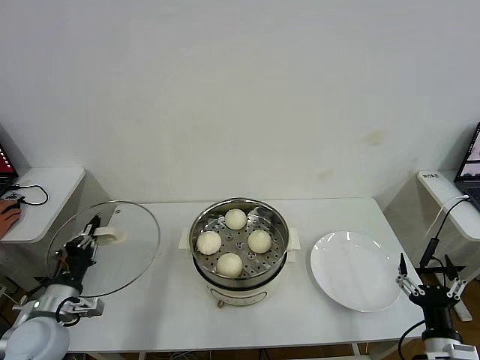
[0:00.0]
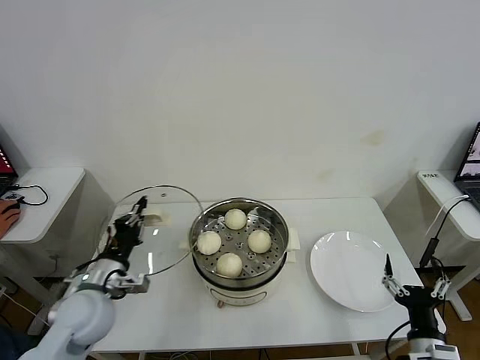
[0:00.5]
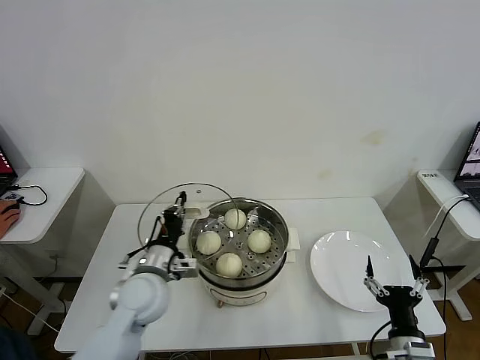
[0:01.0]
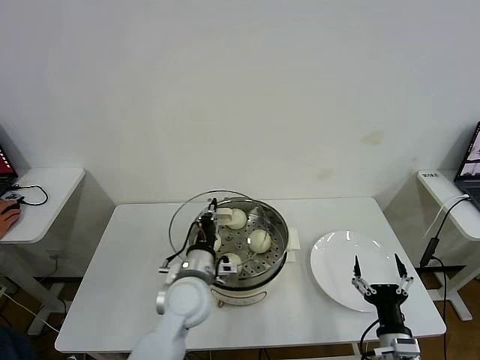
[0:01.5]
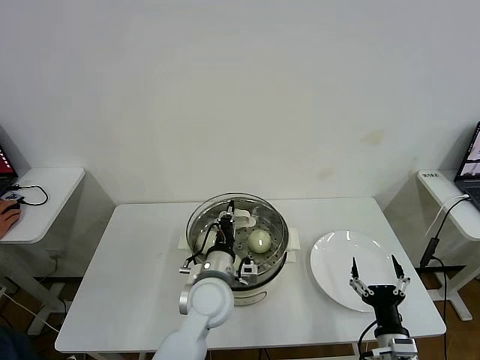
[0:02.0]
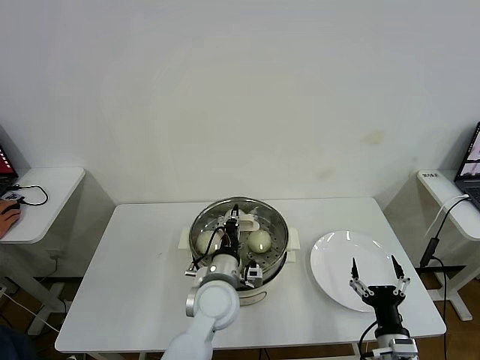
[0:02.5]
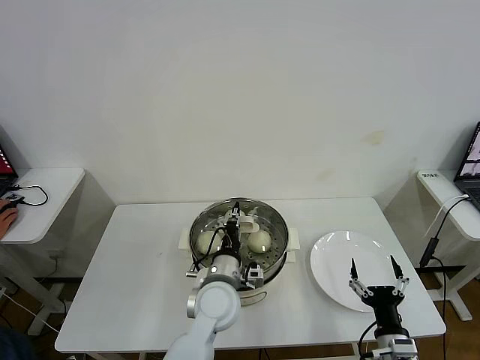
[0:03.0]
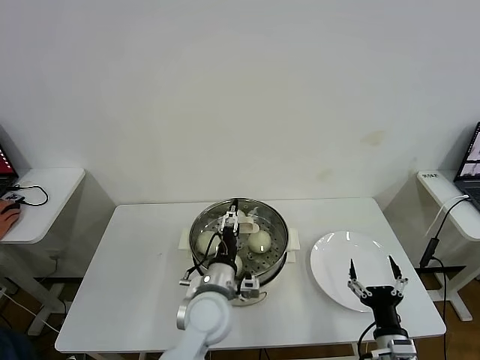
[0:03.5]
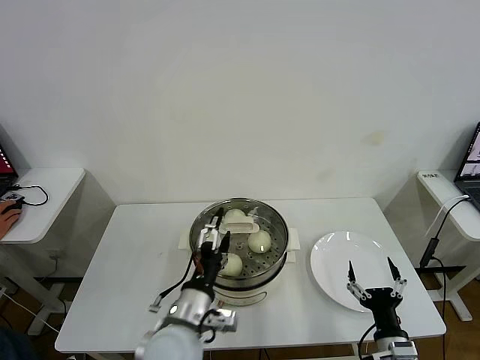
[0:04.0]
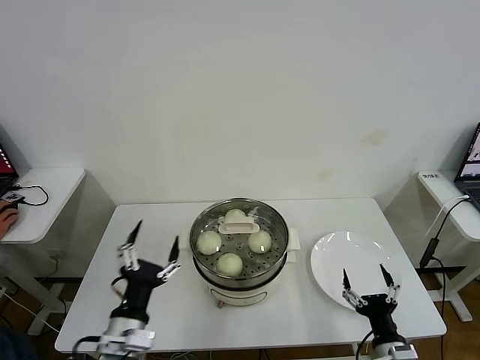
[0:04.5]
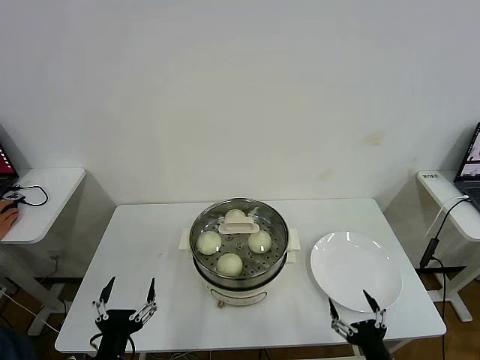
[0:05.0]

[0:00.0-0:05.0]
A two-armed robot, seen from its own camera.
Task of the whole recording: take steamed baozi put them in steamer then cover it.
Step, 0:00.0 to 0:03.5: Place the pot lid on the steamer with left gripper.
0:00.0 to 0:02.5: The right gripper is displaced to the left by roughly 5 cm. The left gripper shifts approximately 35 cm to the right.
0:02.5 to 0:05.0: The left gripper moves backward and to the left, roughly 30 cm, and opens up. The right gripper shifts roughly 5 cm backward.

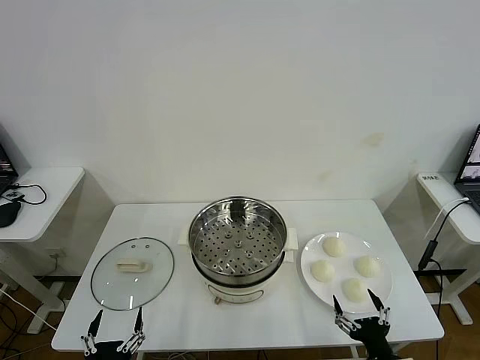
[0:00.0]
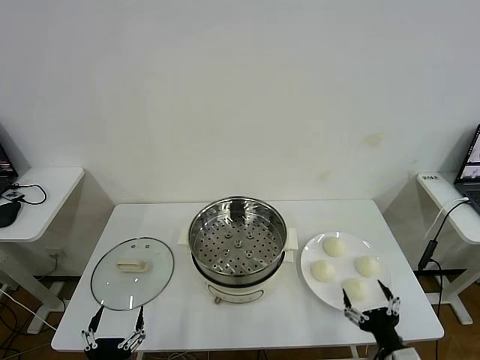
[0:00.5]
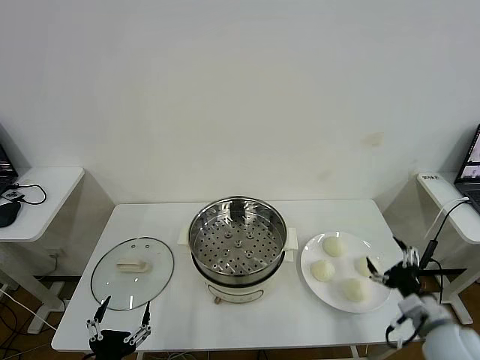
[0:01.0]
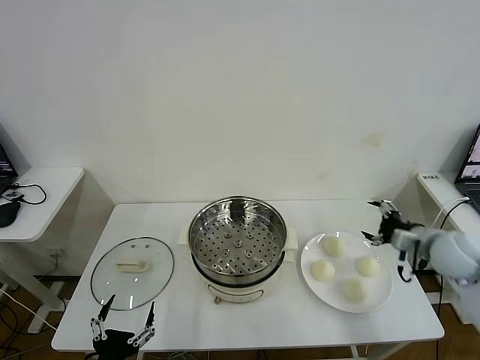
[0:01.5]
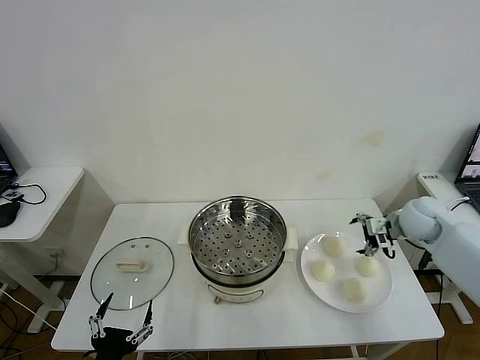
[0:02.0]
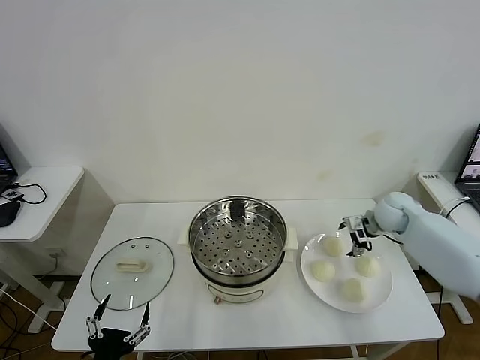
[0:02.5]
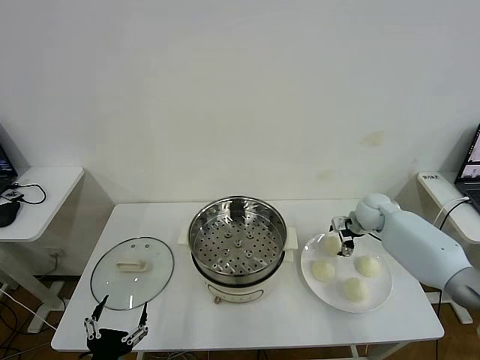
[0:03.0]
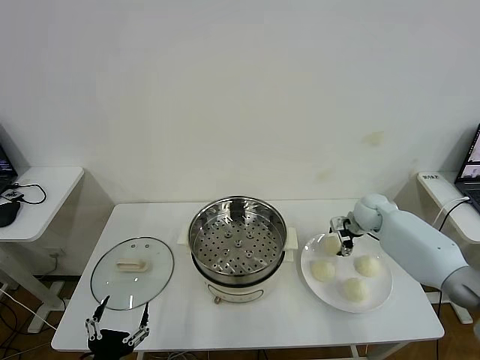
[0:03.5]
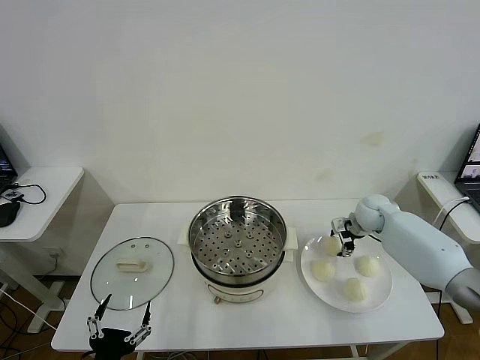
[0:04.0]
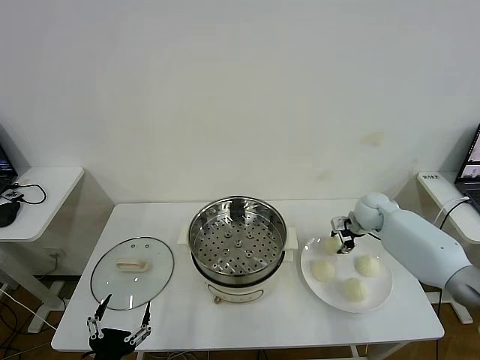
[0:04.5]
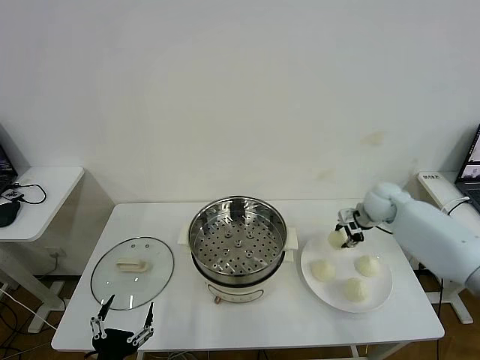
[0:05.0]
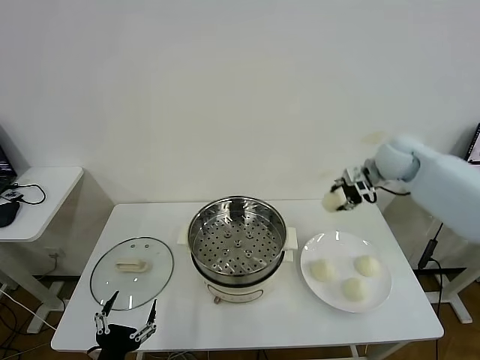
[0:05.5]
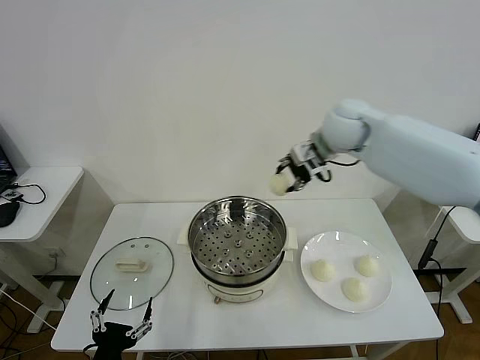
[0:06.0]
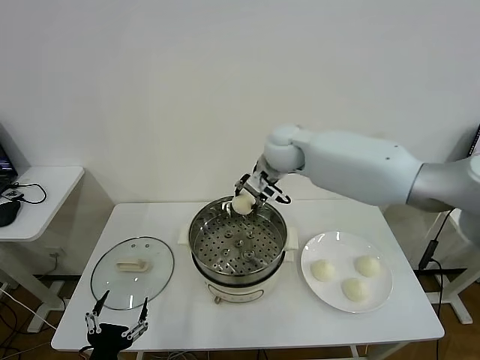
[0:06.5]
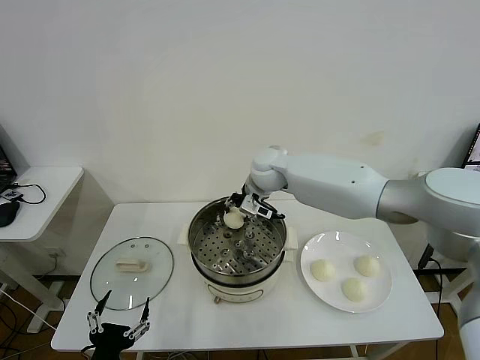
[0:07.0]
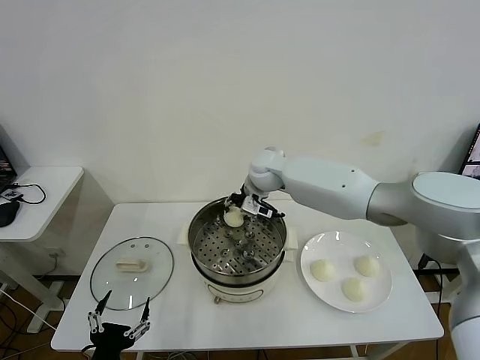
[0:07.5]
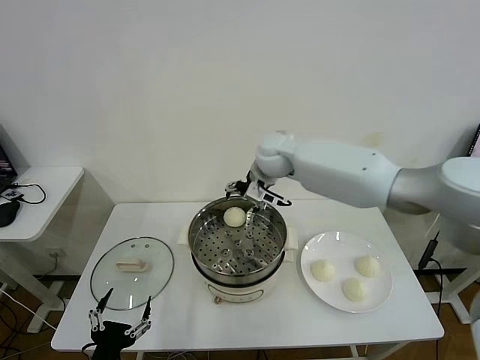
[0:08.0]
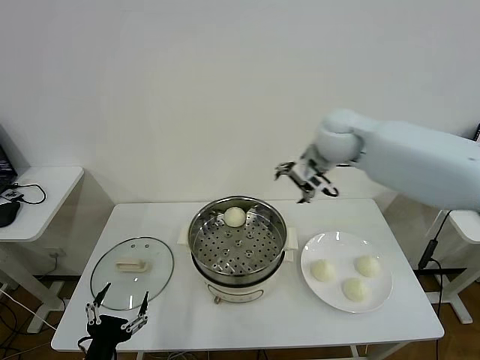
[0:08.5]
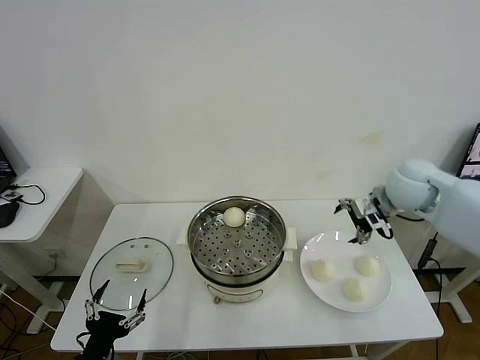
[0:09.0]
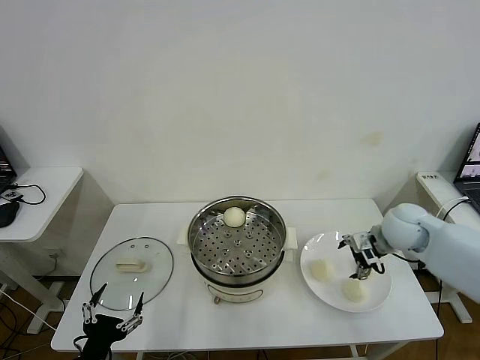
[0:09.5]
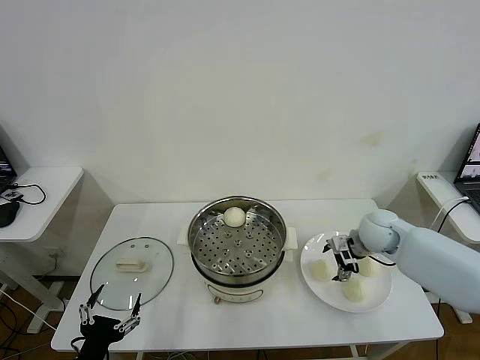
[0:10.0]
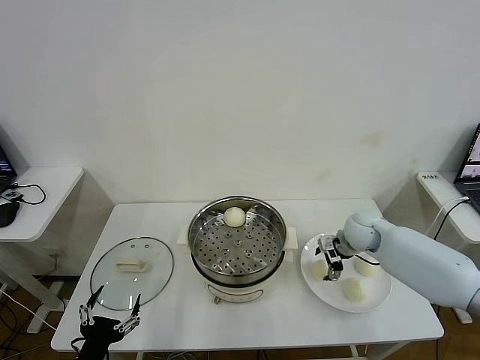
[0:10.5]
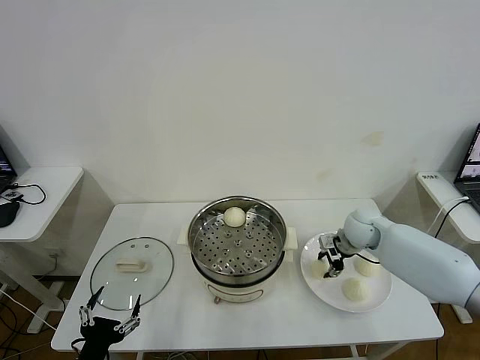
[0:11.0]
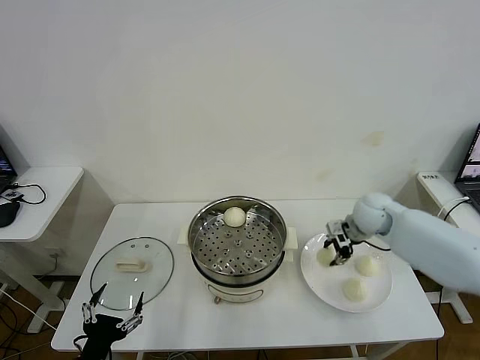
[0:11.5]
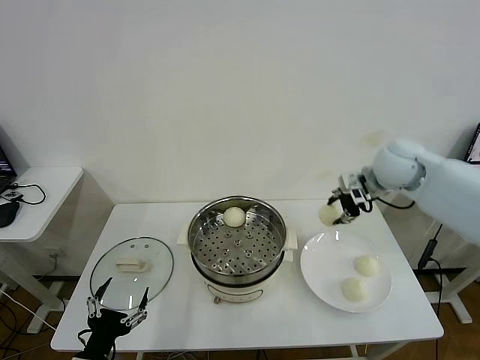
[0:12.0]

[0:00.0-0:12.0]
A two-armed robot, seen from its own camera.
Task of the whole recording: take steamed baozi put them in steamer then cover it.
Step, 0:00.0 to 0:04.0: Grasp the baozi in the plate with right gripper.
Step, 0:04.5 to 0:07.5: Place the baozi on the steamer with right gripper.
Step, 0:08.0 to 0:11.0: Grasp the baozi in the plate with right gripper.
0:02.0 to 0:04.0: The right gripper moves forward, downward and to the left, approximately 10 cm, and closes its fingers.
0:04.0 to 0:06.0: The right gripper travels upward and to the left by approximately 30 cm, and closes up.
0:06.0 to 0:08.0: The right gripper moves to the left, some 5 cm, and opens up.
0:08.0 to 0:10.0: The right gripper heads to the right and downward, covering approximately 30 cm.
0:10.0 to 0:12.0: The right gripper travels upward by roughly 20 cm, and closes.

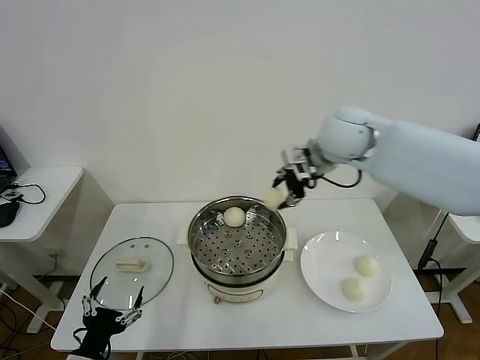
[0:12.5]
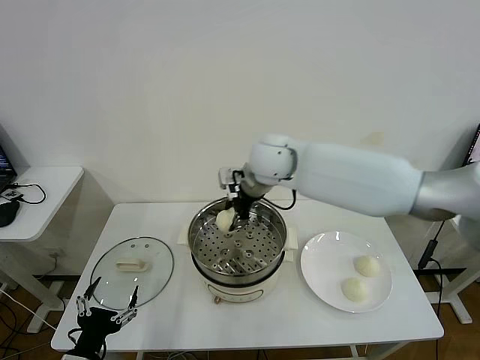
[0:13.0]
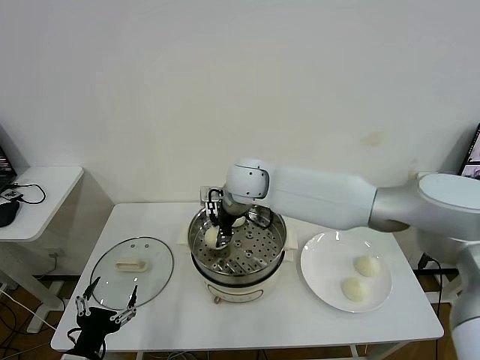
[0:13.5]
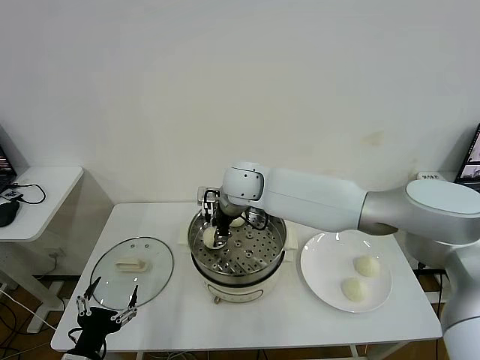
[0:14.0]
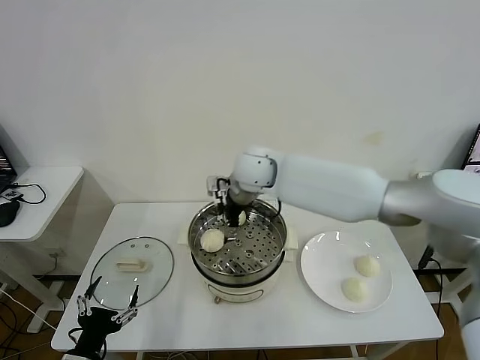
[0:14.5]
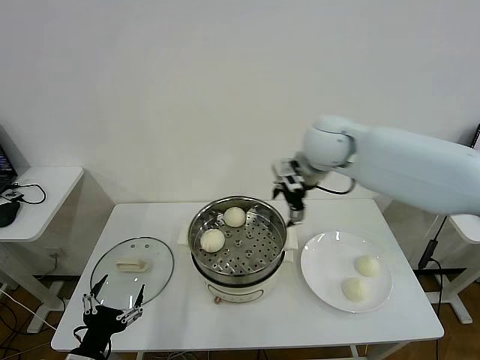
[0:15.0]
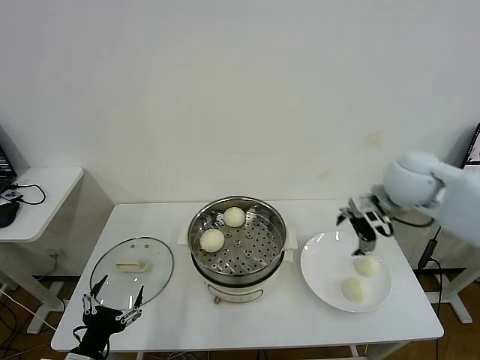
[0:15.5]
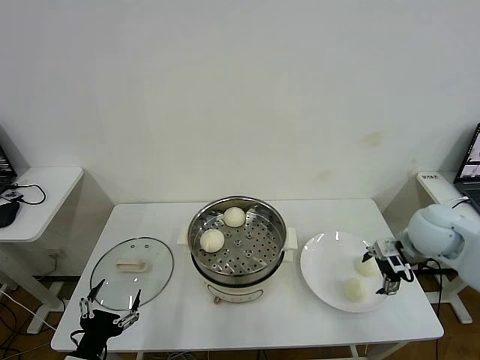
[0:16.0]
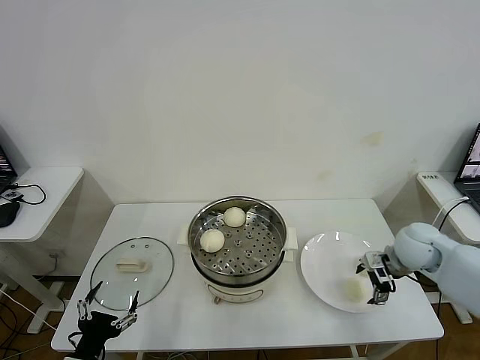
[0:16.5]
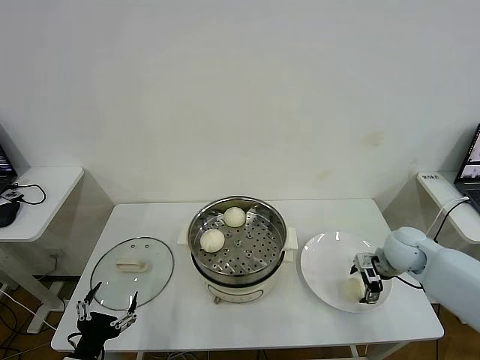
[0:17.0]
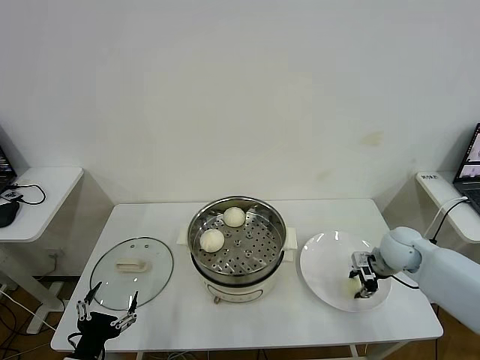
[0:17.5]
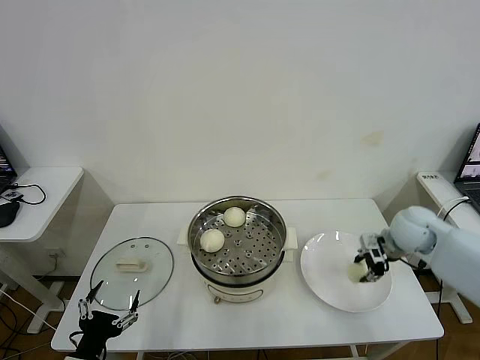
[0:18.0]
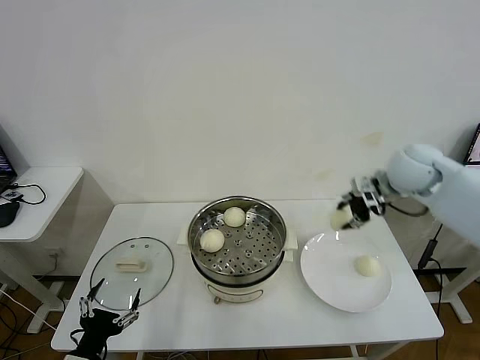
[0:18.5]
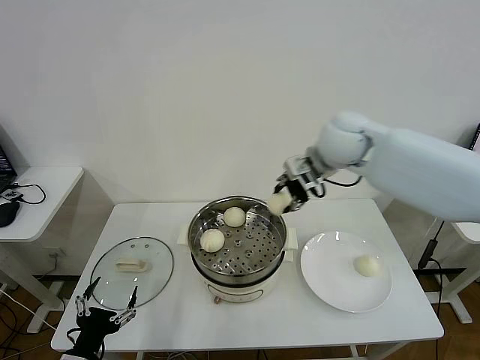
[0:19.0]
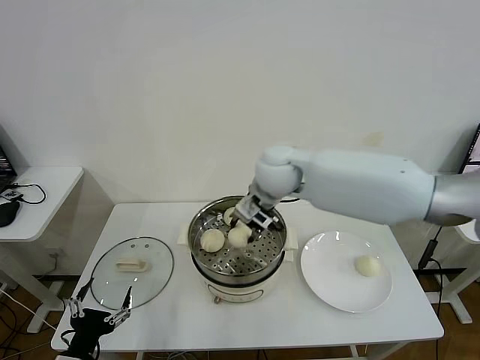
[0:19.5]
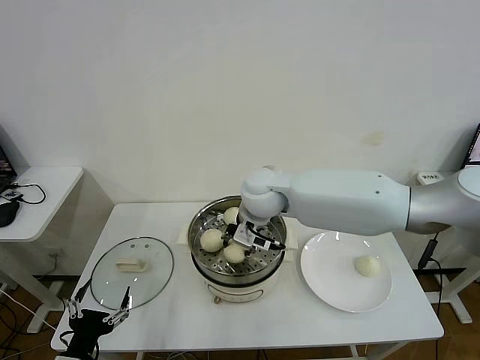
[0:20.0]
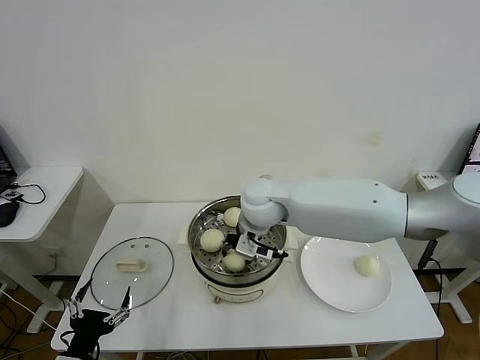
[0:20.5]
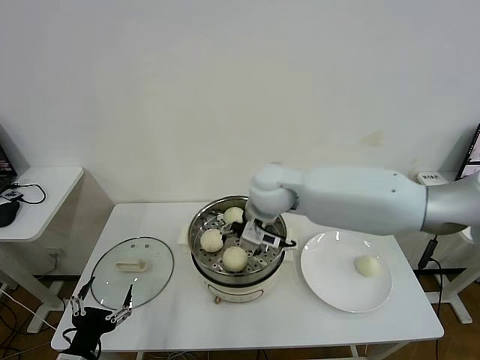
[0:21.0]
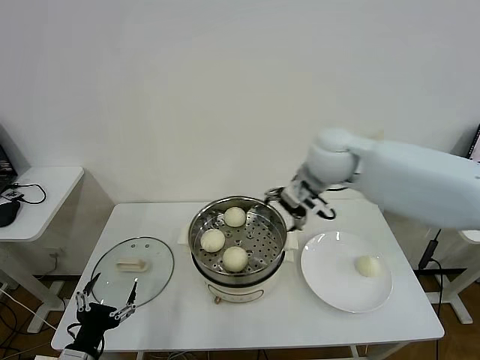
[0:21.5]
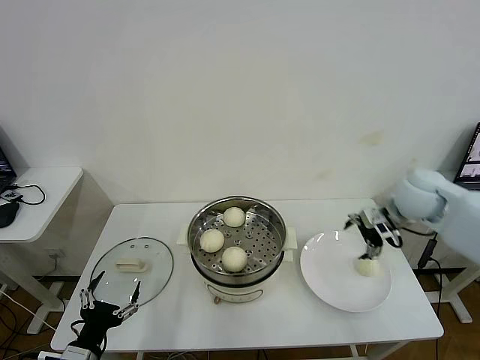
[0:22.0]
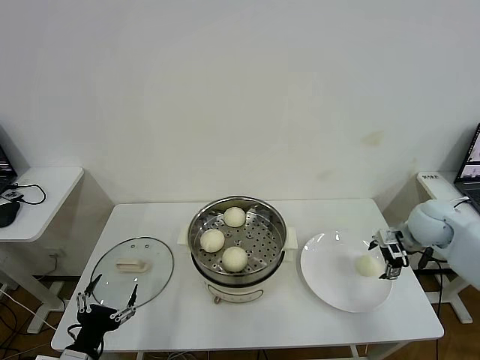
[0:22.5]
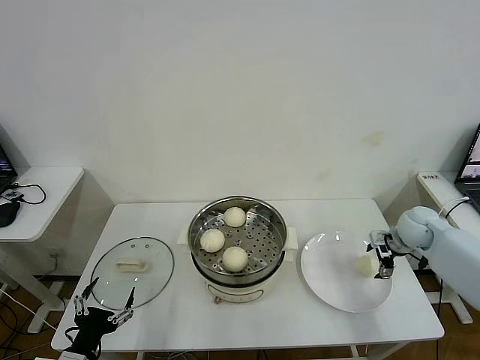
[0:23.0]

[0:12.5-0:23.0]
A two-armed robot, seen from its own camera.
Task of the whole recording: take steamed baozi put them in steamer then cover it.
Step, 0:14.5 to 0:17.5: Grasp the baozi in the plate with right gripper.
Step, 0:18.0 to 0:20.5: Place the baozi on the steamer with right gripper.
0:12.5 to 0:14.5: The right gripper goes some 15 cm to the left and downward, and opens up.
0:14.5 to 0:16.5: The right gripper travels to the right and downward by roughly 35 cm.
0:16.5 to 0:19.0: The right gripper heads to the left, upward and forward, covering some 30 cm, and closes.
0:19.0 to 0:21.0: The right gripper moves to the left and downward, about 10 cm, and opens.
0:21.0 to 0:23.0: The right gripper shifts about 40 cm to the right and downward.
